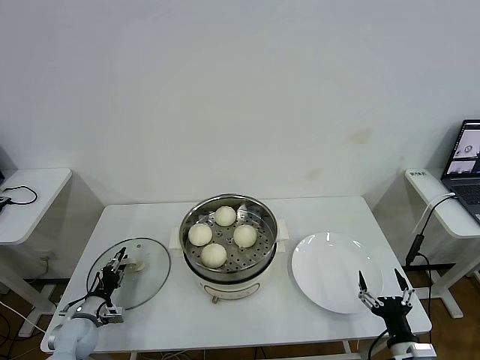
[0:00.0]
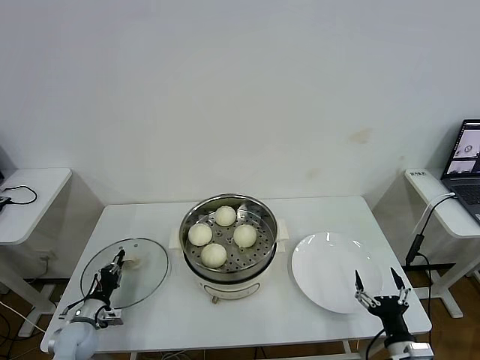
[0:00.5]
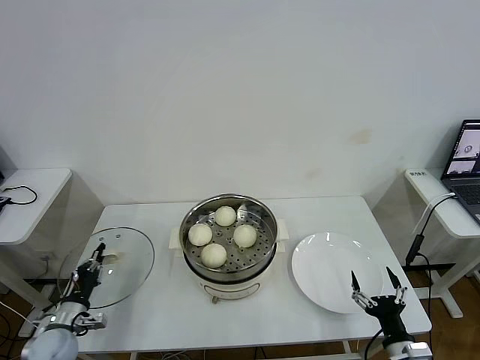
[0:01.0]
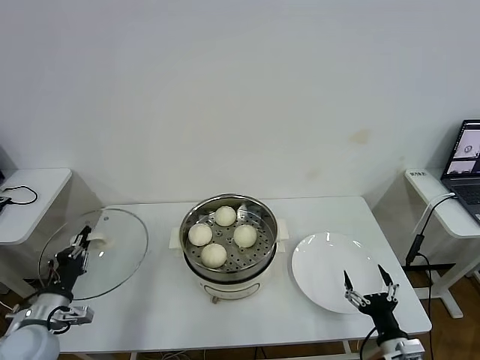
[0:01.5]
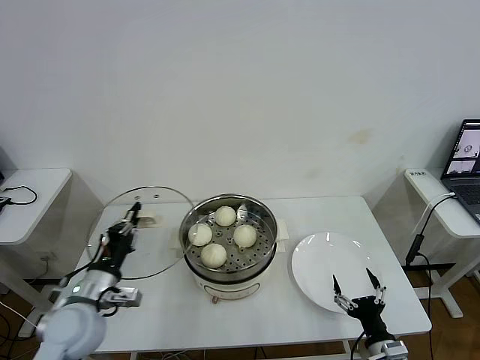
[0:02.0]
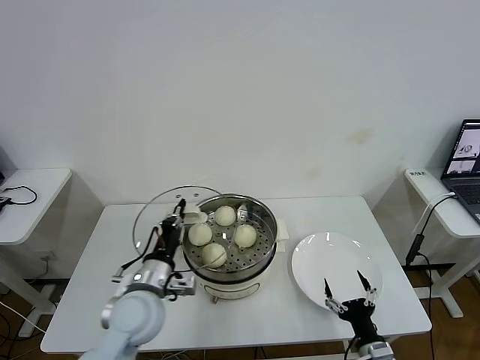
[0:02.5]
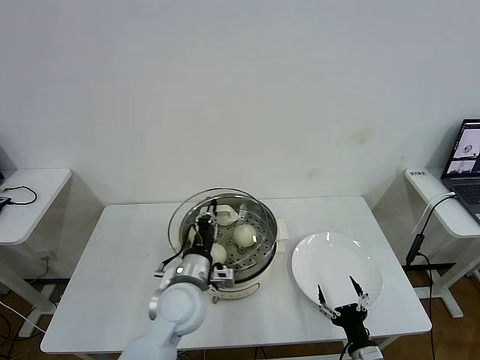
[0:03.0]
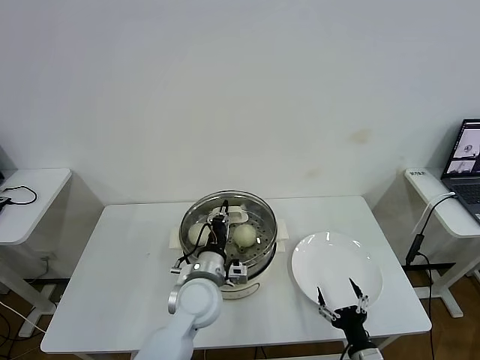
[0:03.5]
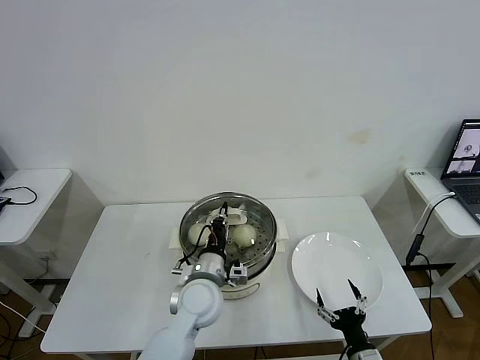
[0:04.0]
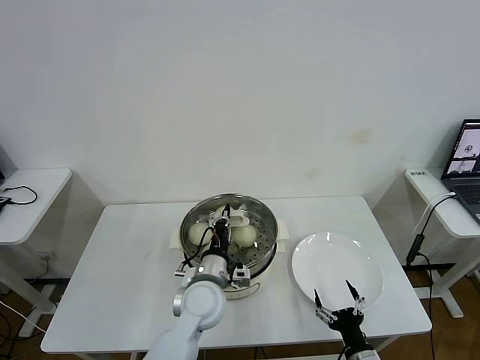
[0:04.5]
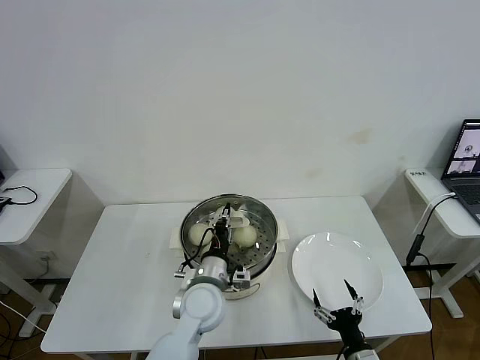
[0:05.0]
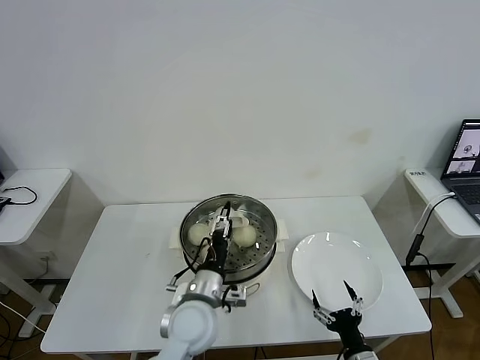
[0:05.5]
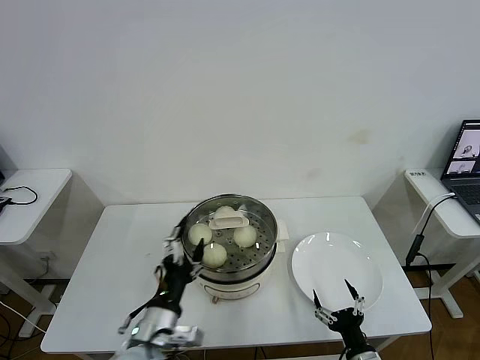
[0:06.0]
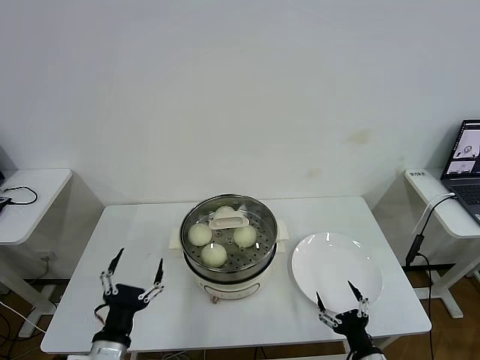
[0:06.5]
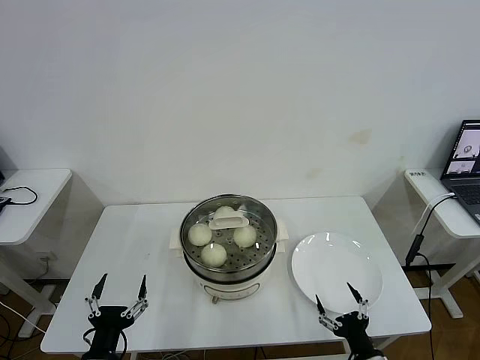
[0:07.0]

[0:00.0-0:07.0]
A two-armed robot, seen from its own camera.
Task of the whole recording: take steamed baozi put them in steamer then cover it.
Step, 0:00.5 to 0:05.0: Place the pot lid on the steamer with left gripper.
0:00.0 to 0:02.0: The left gripper goes approximately 25 cm upward and to the right, and closes its fingers.
0:02.0 to 0:03.5: The left gripper goes some 20 cm to the right.
0:03.5 to 0:05.0: There are only small adjustments of the grippers.
0:05.0 to 0:07.0: The left gripper shifts about 30 cm backward and to the left, and opens its fingers.

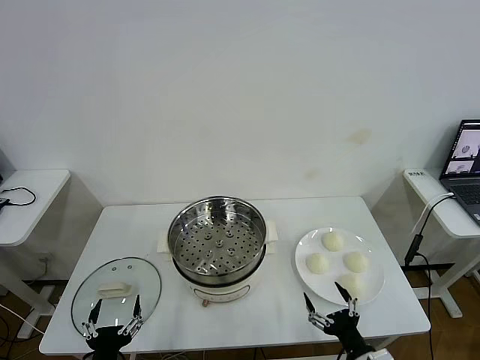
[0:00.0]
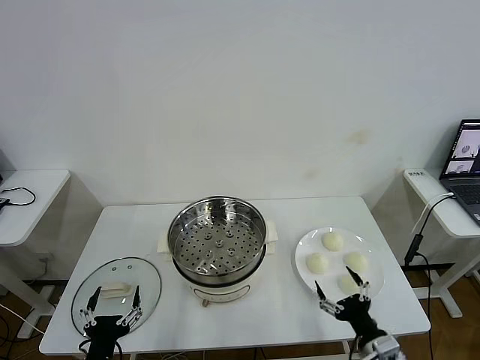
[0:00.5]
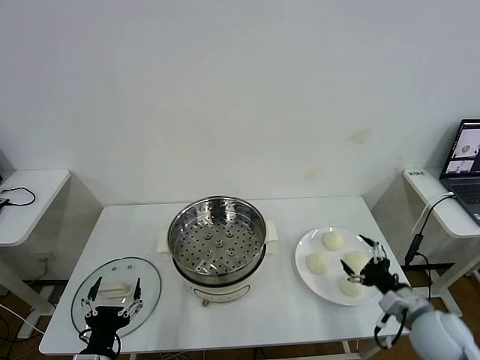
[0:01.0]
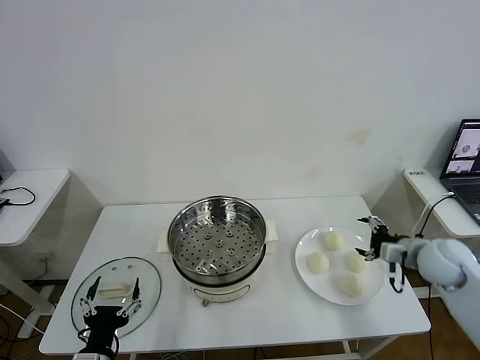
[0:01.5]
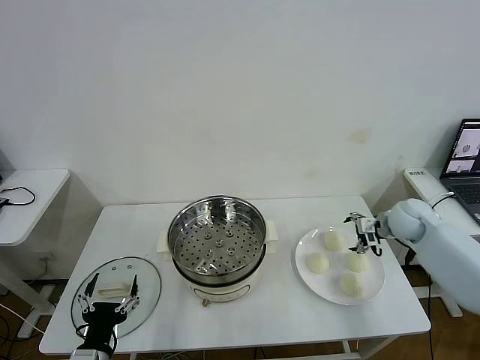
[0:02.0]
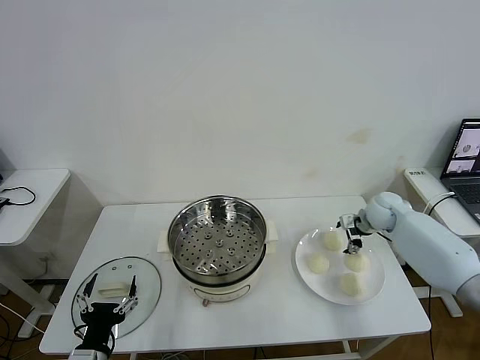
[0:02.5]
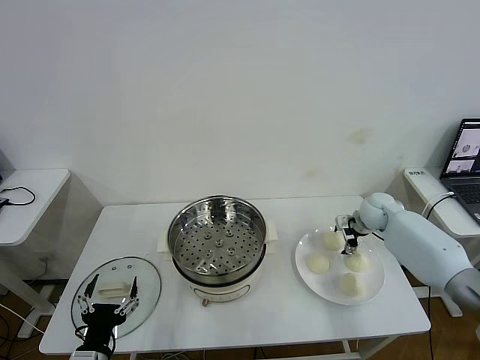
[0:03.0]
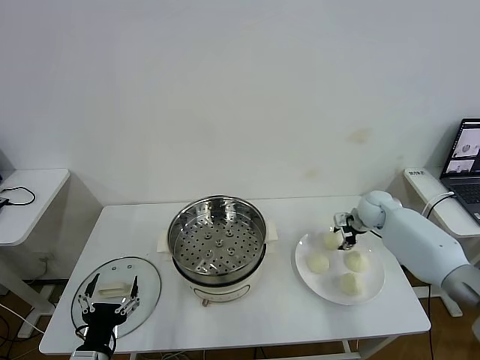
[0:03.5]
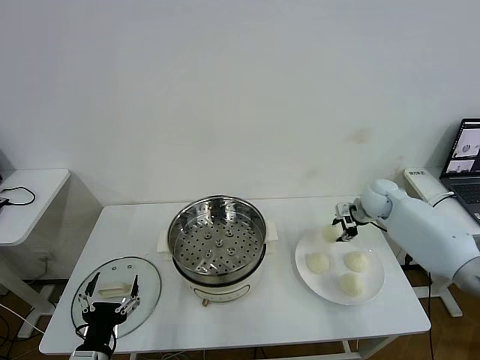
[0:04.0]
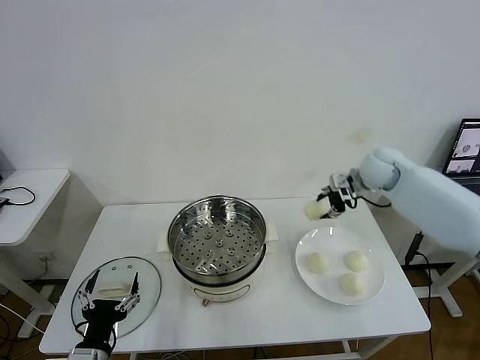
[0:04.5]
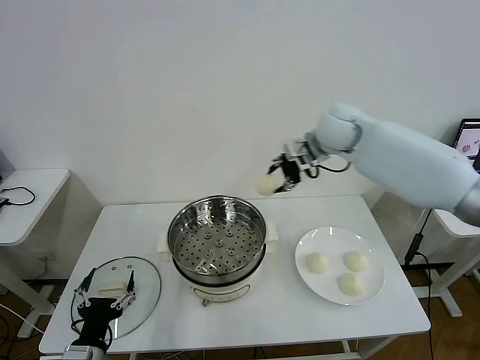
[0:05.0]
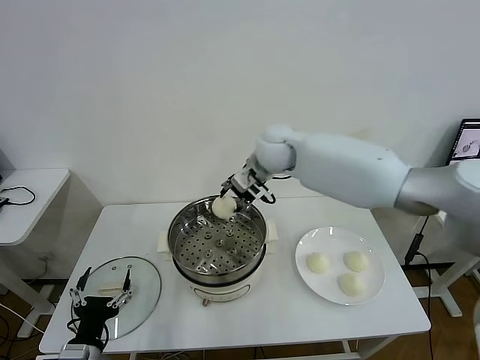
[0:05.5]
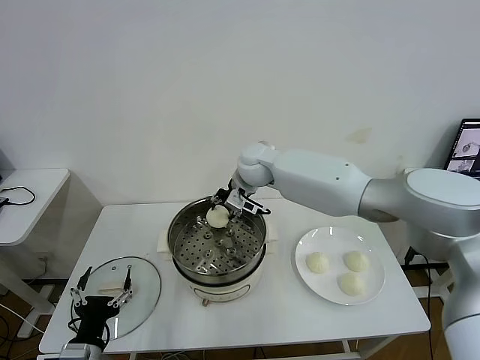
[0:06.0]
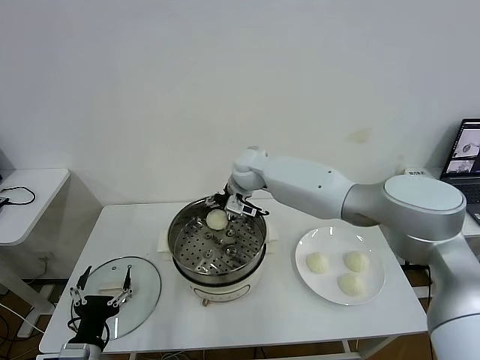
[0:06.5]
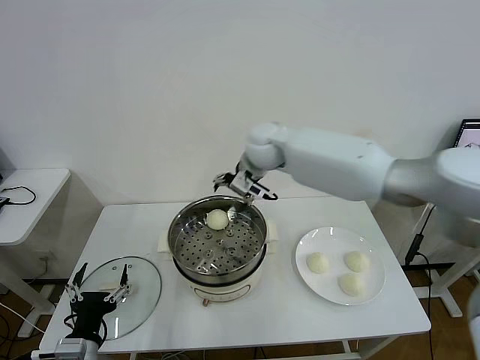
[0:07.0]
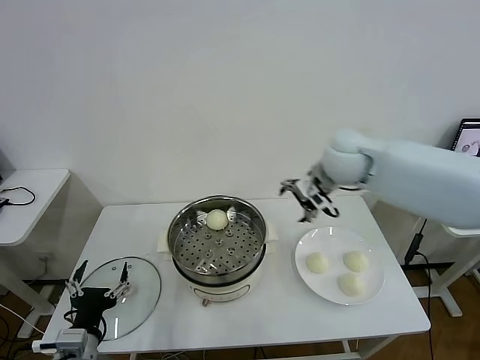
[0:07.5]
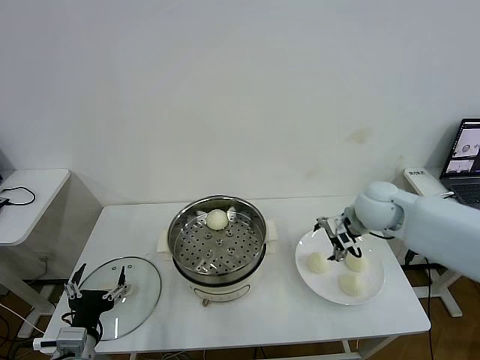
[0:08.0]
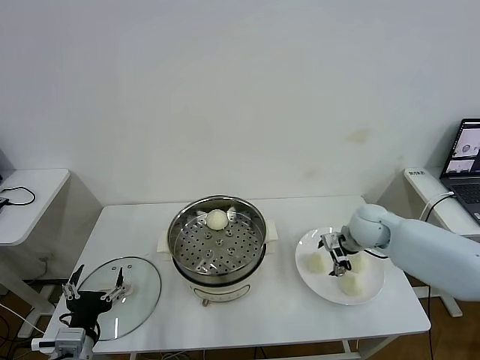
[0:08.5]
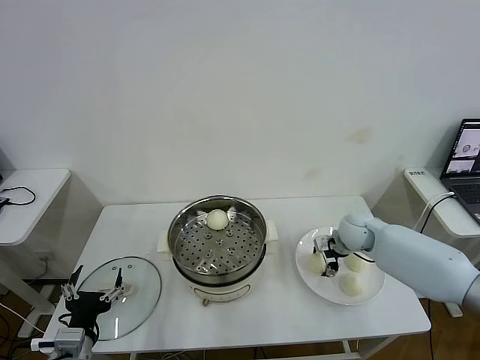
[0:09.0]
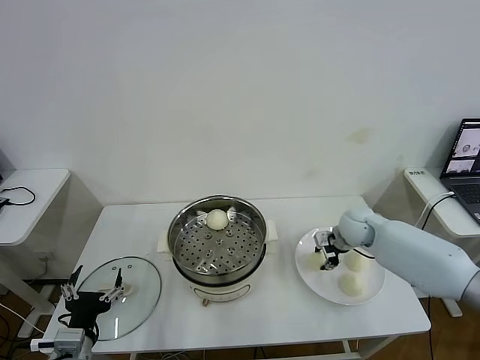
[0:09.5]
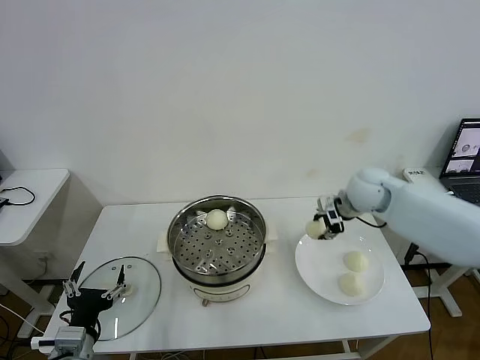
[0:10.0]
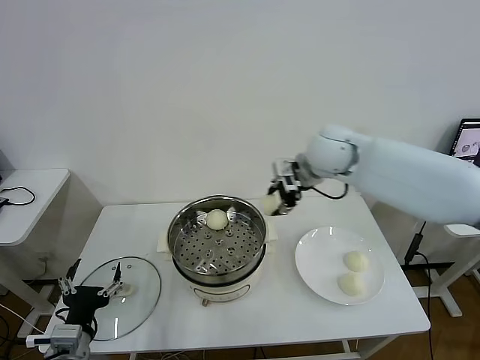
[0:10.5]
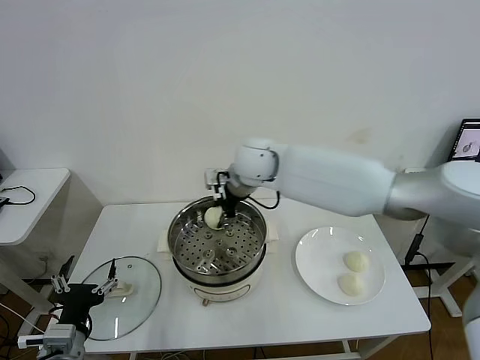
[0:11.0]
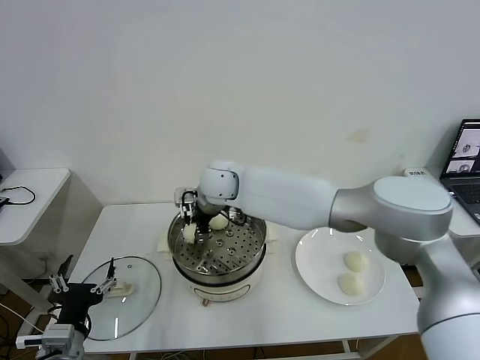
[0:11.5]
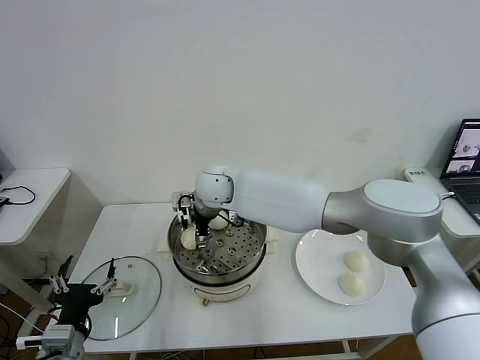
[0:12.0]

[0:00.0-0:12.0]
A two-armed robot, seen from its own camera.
Task of the whole recording: take steamed baozi put them in steamer then cover it.
Step, 0:00.0 to 0:03.0: Grasp the baozi in the plate with right gripper.
Step, 0:03.5 to 0:06.5: Place the baozi on the steamer with right gripper.
Step, 0:07.0 to 0:09.0: Grasp the baozi in the plate with right gripper.
Step, 0:09.5 to 0:11.5: Place the baozi on the steamer with right gripper.
0:02.0 to 0:04.0: The right gripper shifts by approximately 5 cm, and closes its fingers.
0:04.0 to 0:06.0: The right gripper is displaced to the left by approximately 35 cm.
0:06.0 to 0:08.0: The right gripper goes some 30 cm to the right and backward, and opens its fingers.
0:08.0 to 0:10.0: The right gripper is displaced upward by roughly 5 cm, and closes its fingers.
0:10.0 to 0:12.0: The right gripper shifts some 30 cm to the left, and opens its fingers.

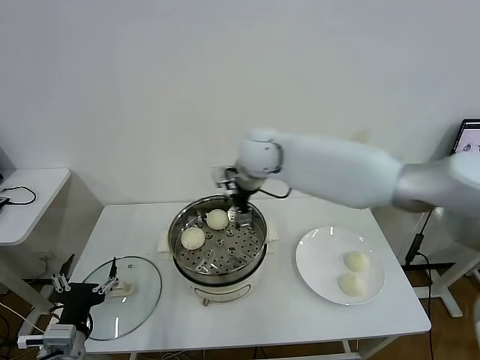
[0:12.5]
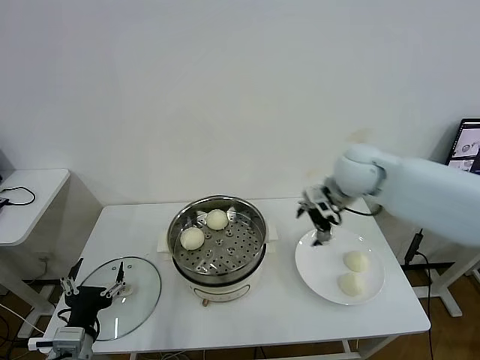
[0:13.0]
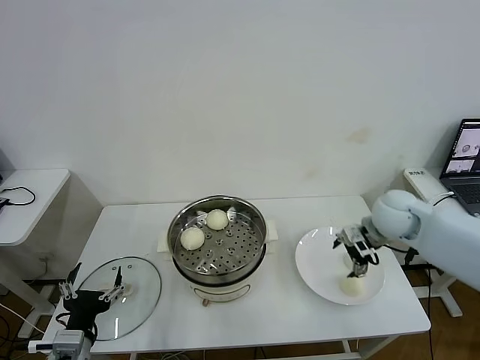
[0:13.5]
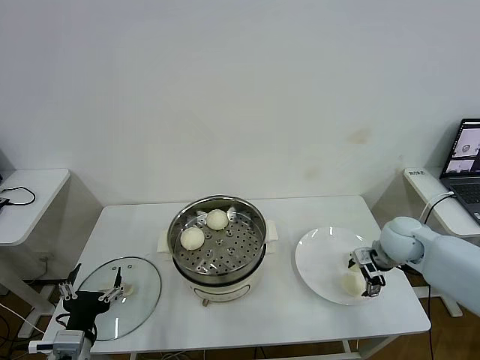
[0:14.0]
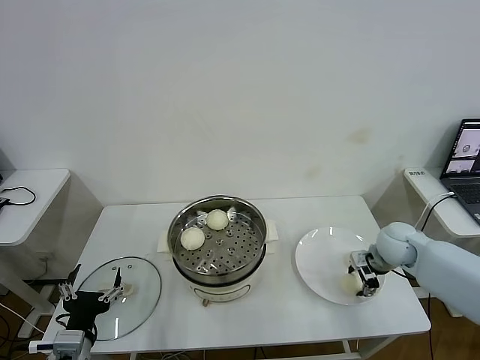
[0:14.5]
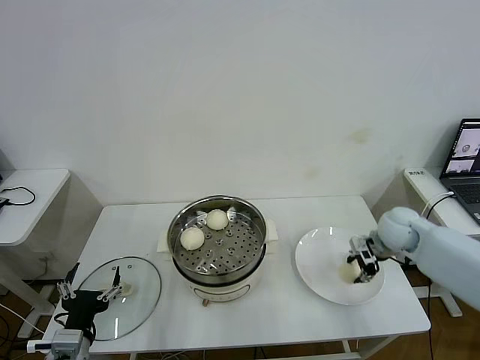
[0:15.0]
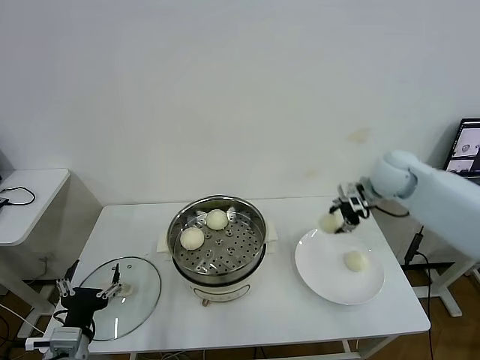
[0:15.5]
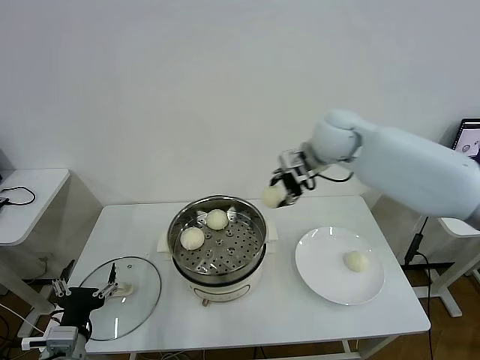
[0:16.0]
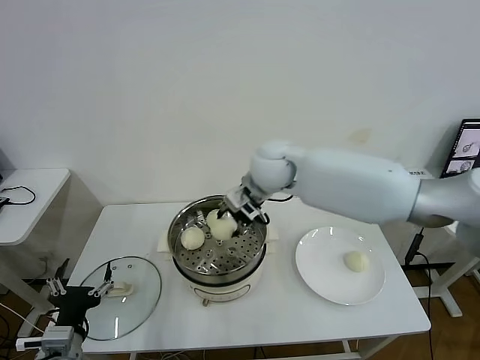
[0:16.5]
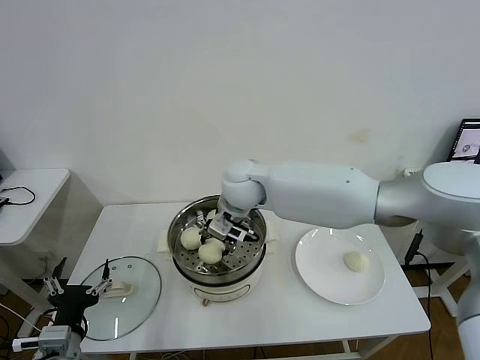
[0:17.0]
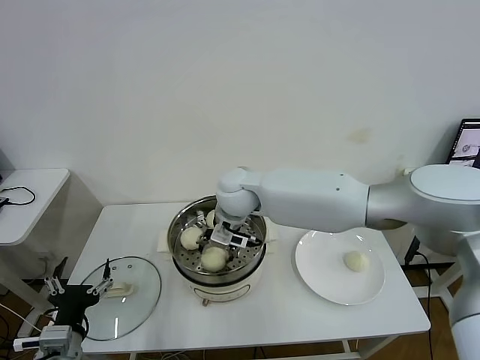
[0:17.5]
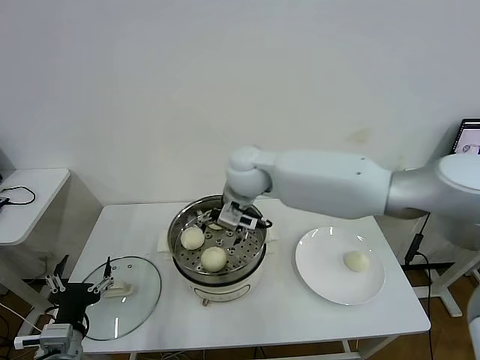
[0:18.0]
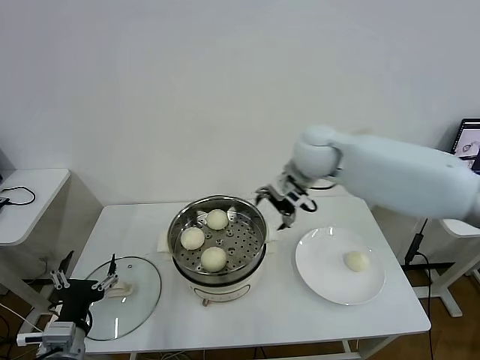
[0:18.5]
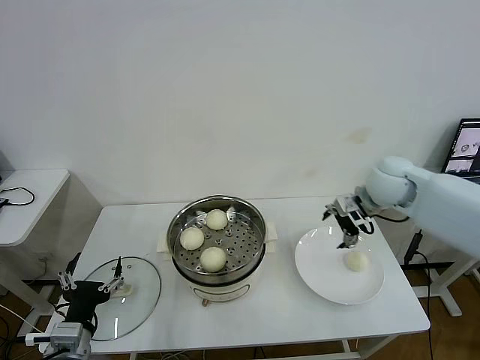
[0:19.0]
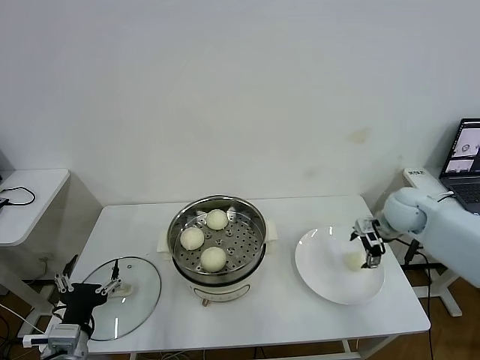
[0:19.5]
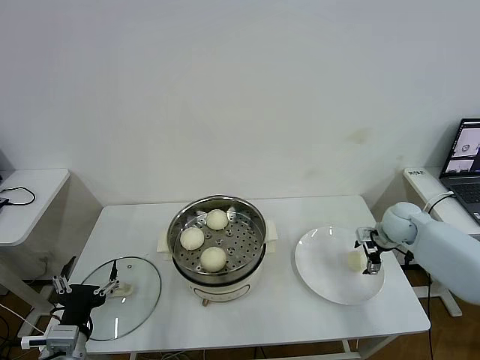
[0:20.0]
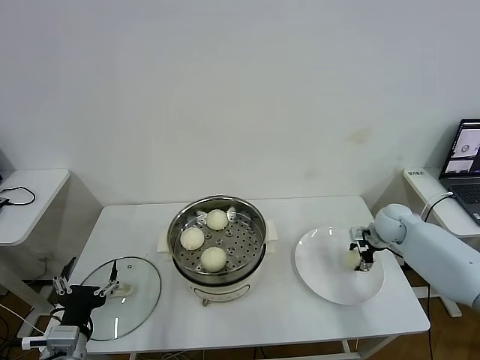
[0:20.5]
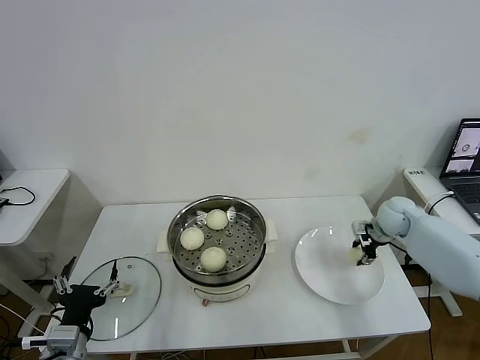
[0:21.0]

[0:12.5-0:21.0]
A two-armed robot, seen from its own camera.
Task of the whole recording: take steamed baozi put them in steamer then cover it.
Step, 0:12.5 to 0:14.0: Grasp the baozi in the plate with right gripper.
Step, 0:15.0 to 0:17.5: Place the baozi on the steamer with right gripper.
Step, 0:18.0 to 0:20.5: Grasp the baozi in the plate with right gripper.
0:12.5 to 0:14.5: The right gripper is displaced to the right and downward by approximately 35 cm, and closes its fingers.
0:14.5 to 0:16.5: The right gripper travels to the left and upward by about 35 cm.
0:16.5 to 0:19.0: The right gripper heads to the right, covering roughly 25 cm, and opens up.
0:19.0 to 0:21.0: The right gripper shifts about 15 cm downward and to the right, and closes its fingers.
